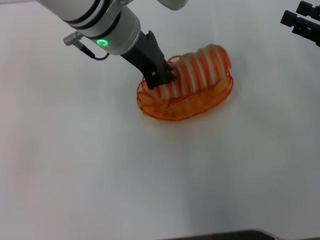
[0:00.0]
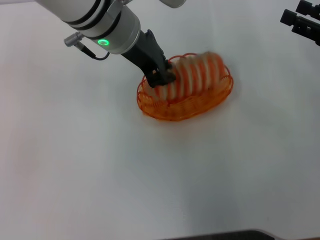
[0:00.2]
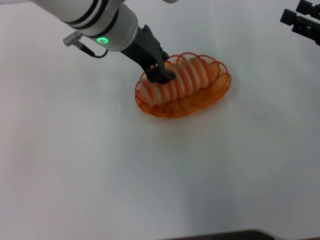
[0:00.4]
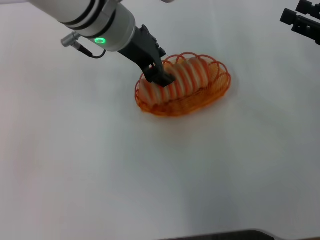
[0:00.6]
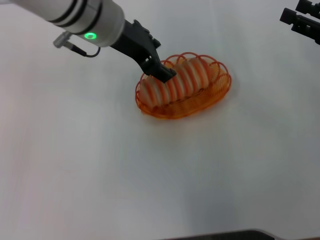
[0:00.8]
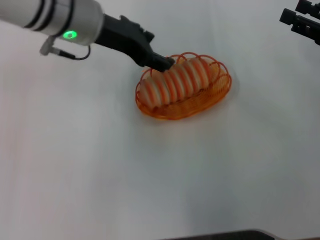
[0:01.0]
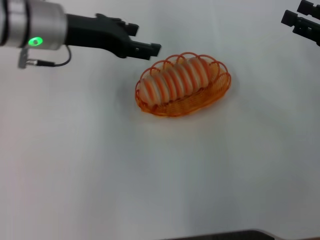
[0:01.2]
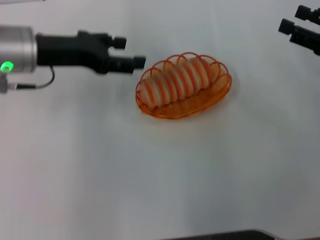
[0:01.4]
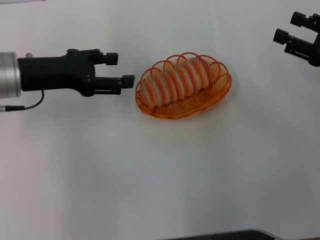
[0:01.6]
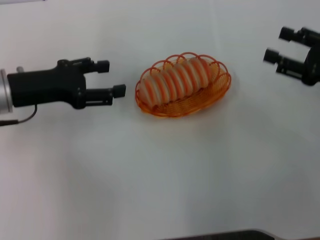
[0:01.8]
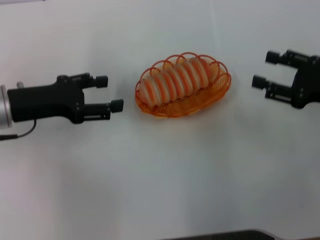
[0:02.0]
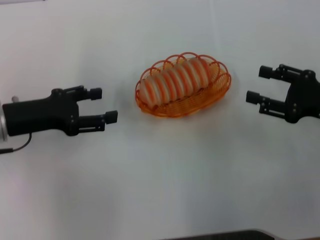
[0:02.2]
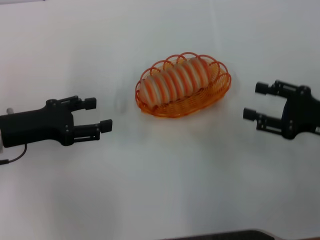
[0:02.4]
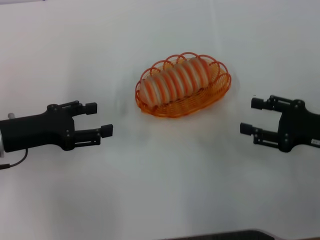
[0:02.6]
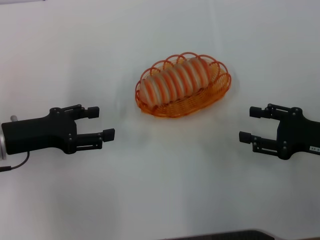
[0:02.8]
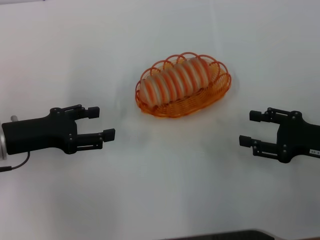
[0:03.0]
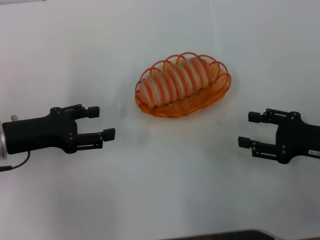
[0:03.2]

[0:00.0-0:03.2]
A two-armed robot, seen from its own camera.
0:00.0 to 0:01.6: The left gripper travels to the left and downward by some 20 cm, and opens.
0:01.6 to 0:03.2: The left gripper is displaced backward and downward by approximately 10 cm. Meanwhile the right gripper moves downward and backward, approximately 10 cm.
